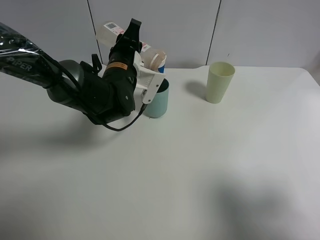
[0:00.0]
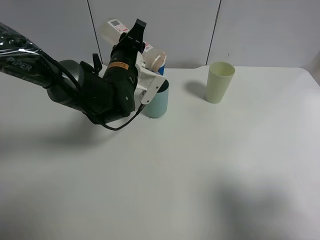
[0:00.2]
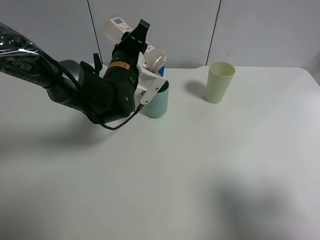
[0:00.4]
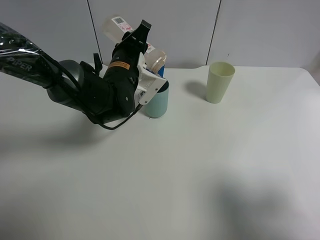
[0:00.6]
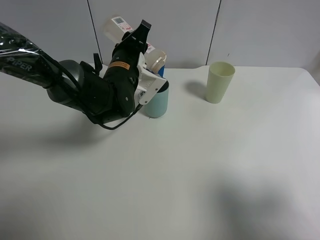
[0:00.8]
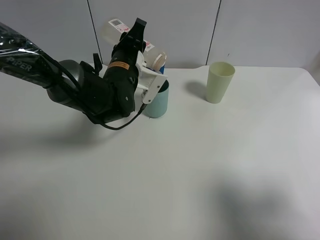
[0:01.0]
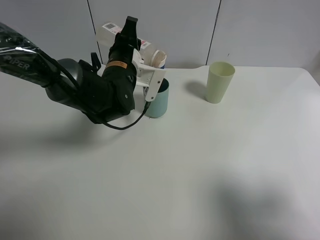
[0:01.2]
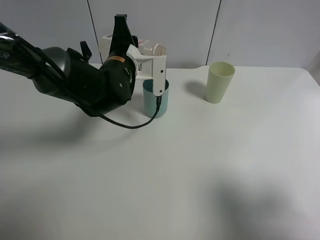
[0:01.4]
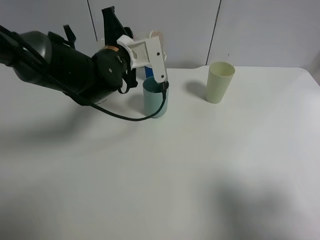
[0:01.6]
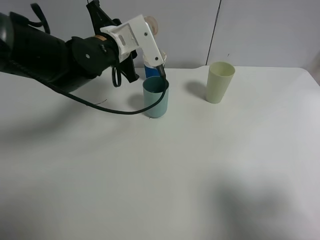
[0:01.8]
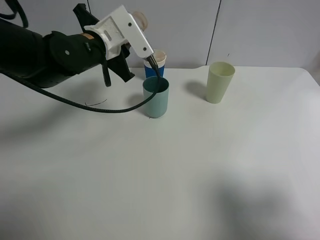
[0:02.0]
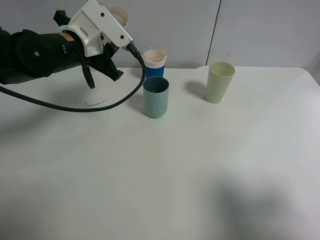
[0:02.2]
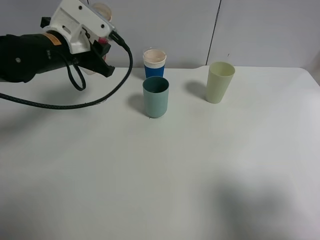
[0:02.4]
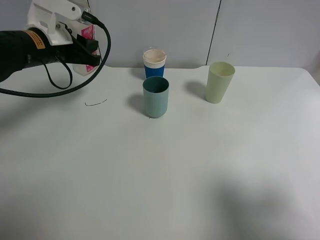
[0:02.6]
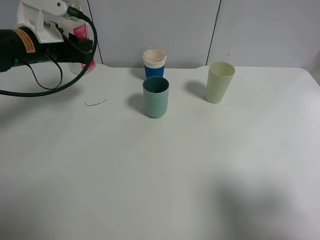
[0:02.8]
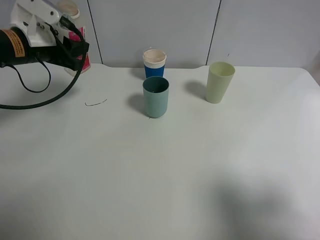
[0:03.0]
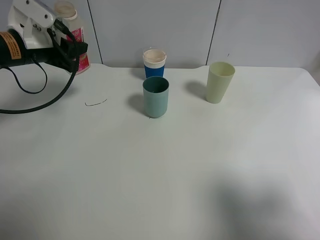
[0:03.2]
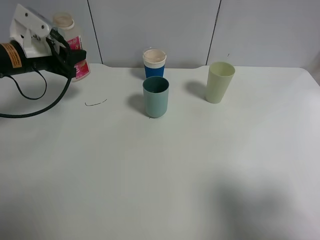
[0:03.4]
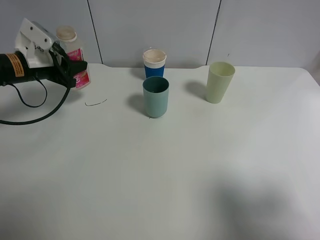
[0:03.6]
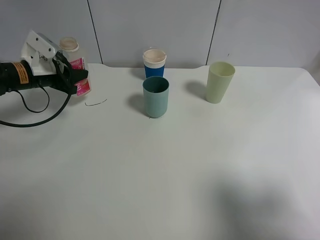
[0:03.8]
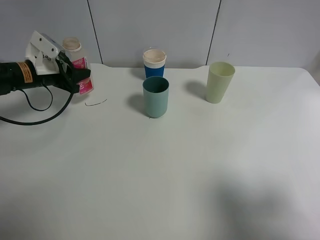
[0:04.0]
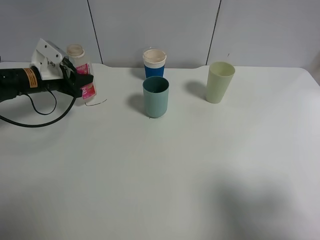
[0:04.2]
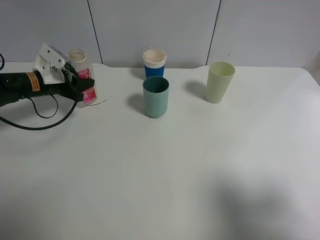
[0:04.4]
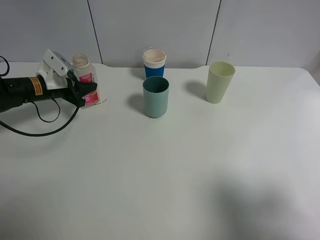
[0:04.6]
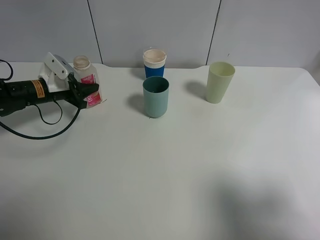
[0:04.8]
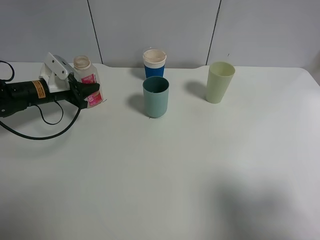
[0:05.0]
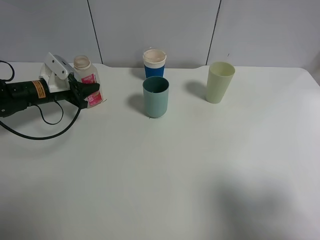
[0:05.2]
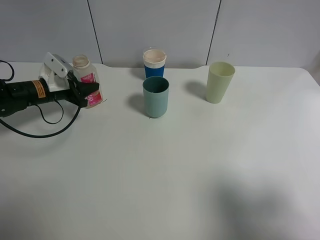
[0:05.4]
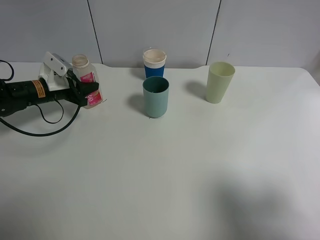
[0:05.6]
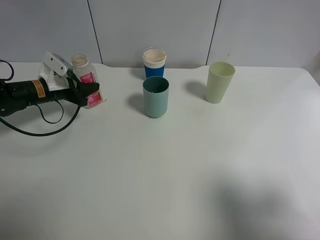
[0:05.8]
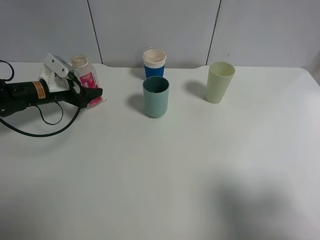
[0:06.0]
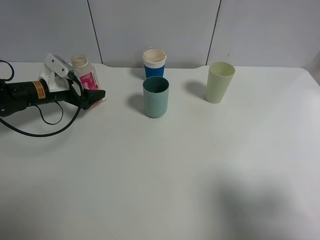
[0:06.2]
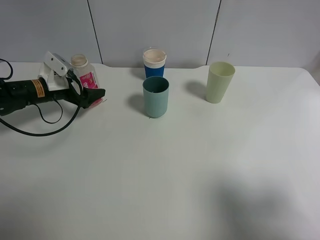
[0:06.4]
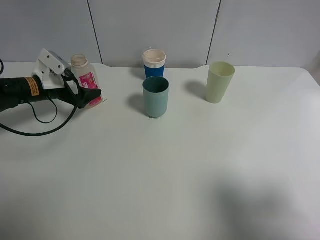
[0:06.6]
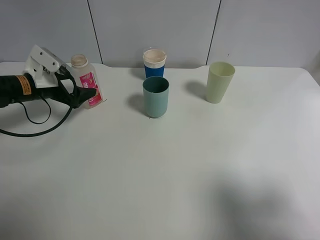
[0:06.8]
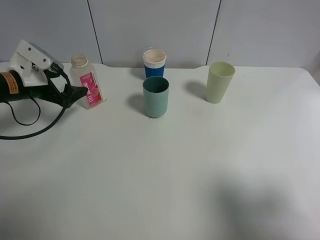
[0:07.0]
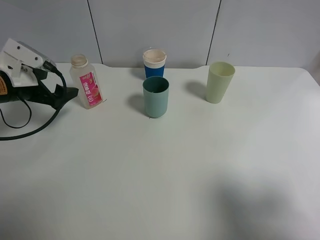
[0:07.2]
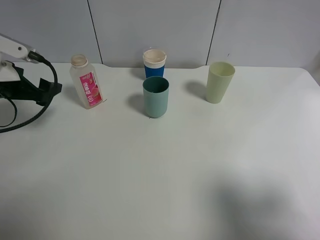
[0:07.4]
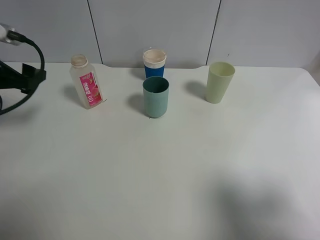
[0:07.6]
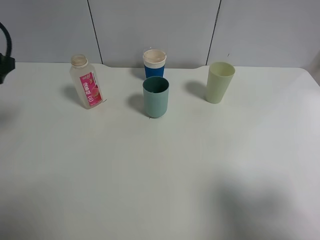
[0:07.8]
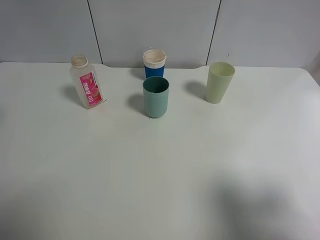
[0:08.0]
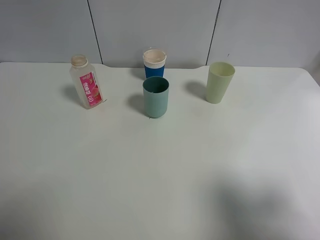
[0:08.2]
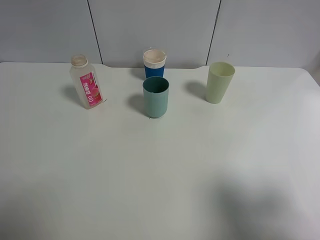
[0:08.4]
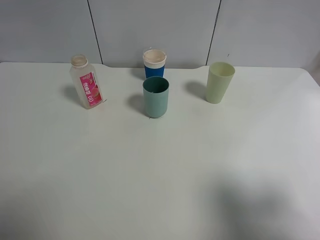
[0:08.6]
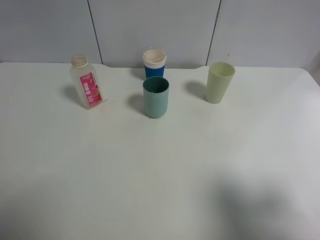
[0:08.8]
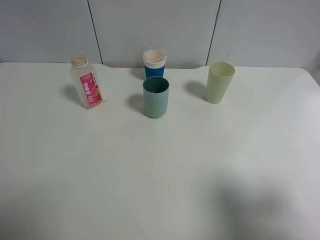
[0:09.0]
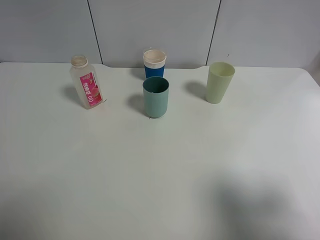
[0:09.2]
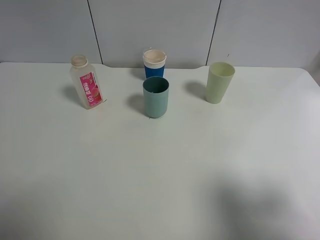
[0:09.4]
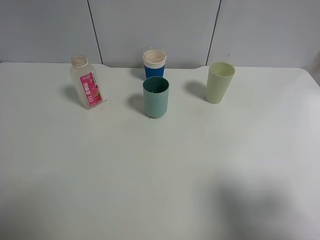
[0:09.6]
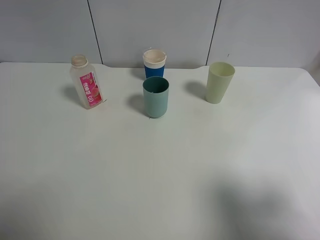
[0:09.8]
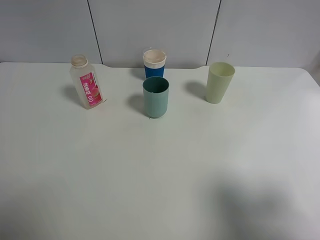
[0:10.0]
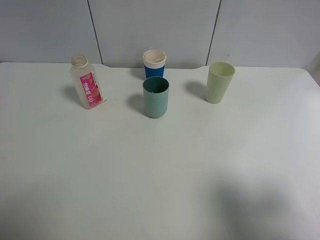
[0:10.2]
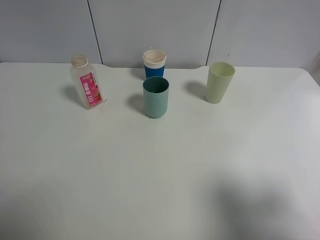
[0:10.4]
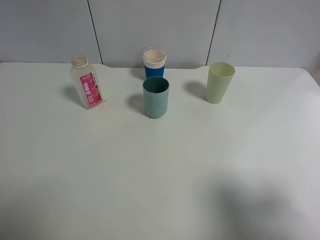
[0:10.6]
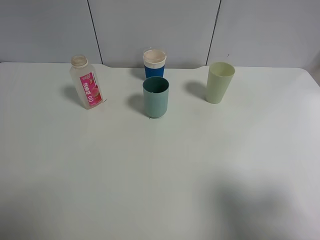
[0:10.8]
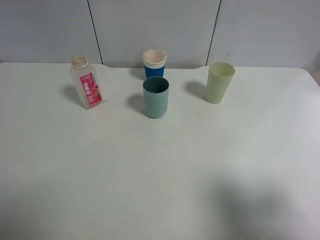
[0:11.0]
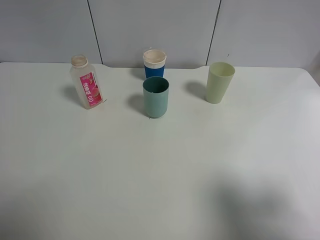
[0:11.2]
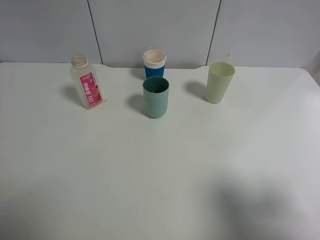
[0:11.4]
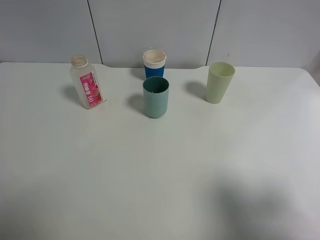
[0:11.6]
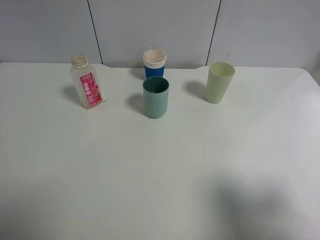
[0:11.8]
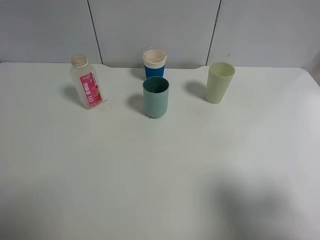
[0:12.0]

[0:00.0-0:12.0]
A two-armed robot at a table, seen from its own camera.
Task of the whole recording: use a clamp to hold the bottle of the drink, pour the beverage into a random cup, then clamp the cup containing the drink and pour the drink into another random cup.
Step, 0:01.8 to 0:05.8: Place the drink bottle on the table with left gripper.
0:01.6 to 0:03.0: The left gripper heads to the left, covering some 15 cm.
0:03.0 to 0:04.4: The left gripper goes roughly 10 cm downward.
0:04.4 to 0:06.0: The left gripper opens.
0:06.0 to 0:07.6: The left gripper goes approximately 20 cm upward and backward.
0:07.6 to 0:09.0: The left gripper is displaced backward and upward by approximately 30 cm.

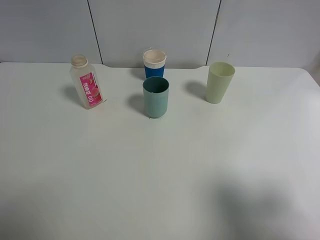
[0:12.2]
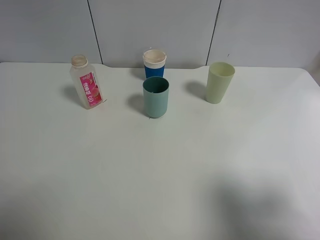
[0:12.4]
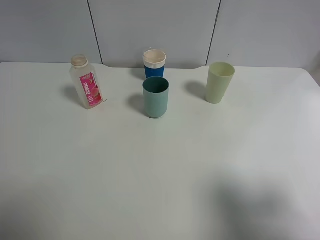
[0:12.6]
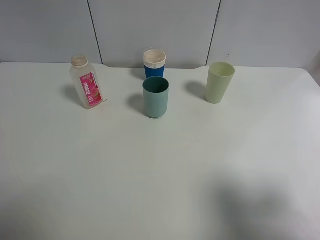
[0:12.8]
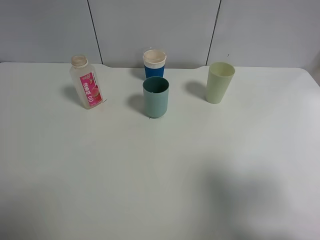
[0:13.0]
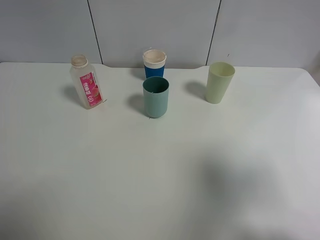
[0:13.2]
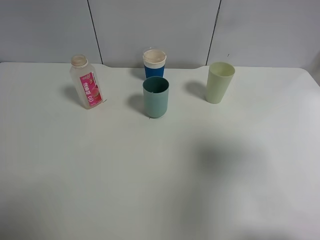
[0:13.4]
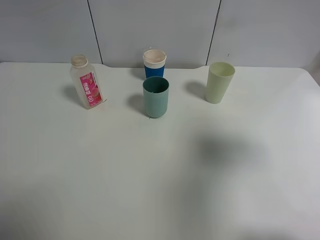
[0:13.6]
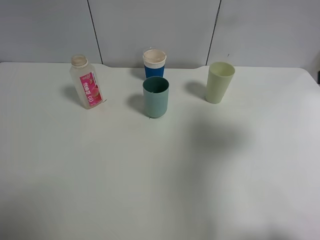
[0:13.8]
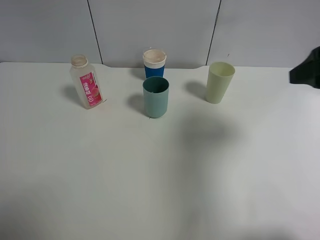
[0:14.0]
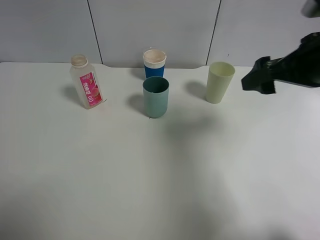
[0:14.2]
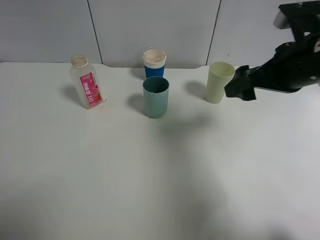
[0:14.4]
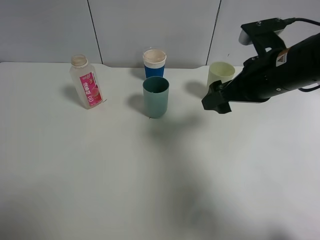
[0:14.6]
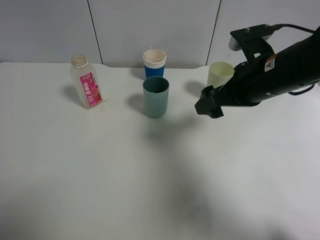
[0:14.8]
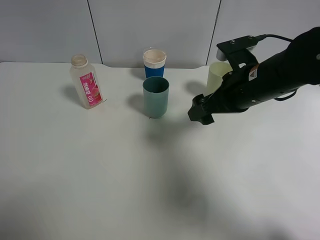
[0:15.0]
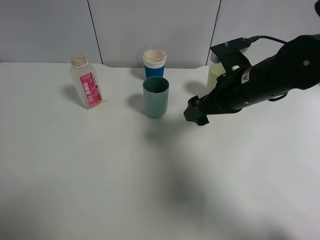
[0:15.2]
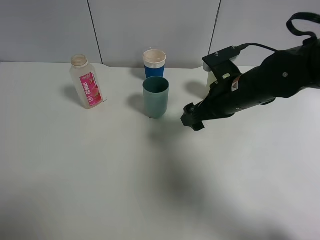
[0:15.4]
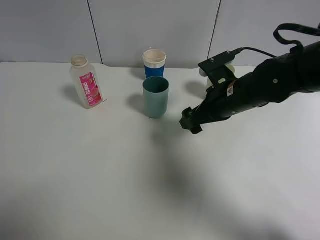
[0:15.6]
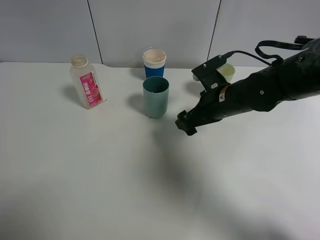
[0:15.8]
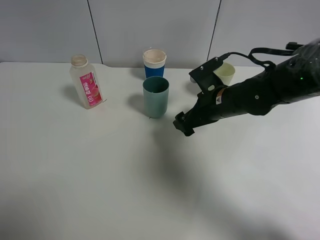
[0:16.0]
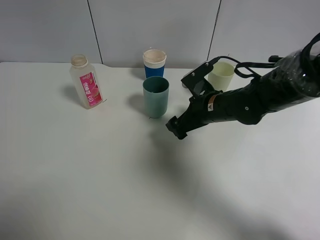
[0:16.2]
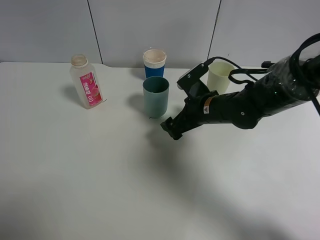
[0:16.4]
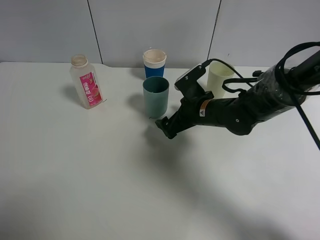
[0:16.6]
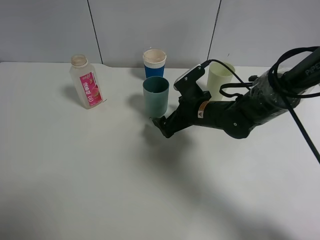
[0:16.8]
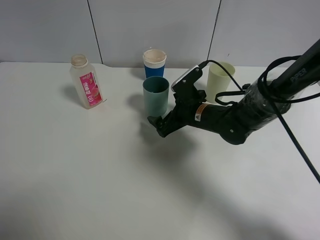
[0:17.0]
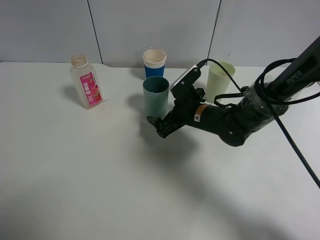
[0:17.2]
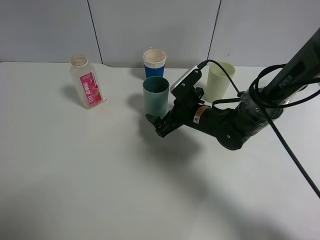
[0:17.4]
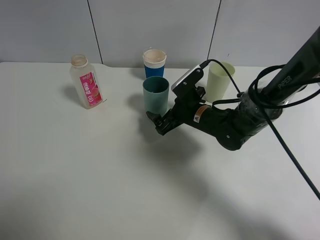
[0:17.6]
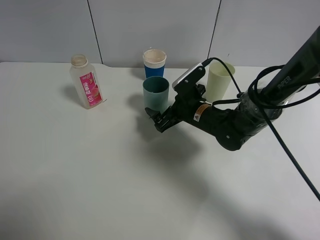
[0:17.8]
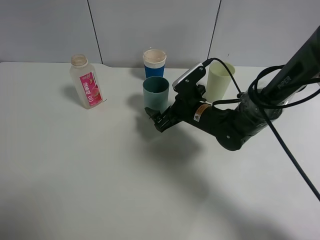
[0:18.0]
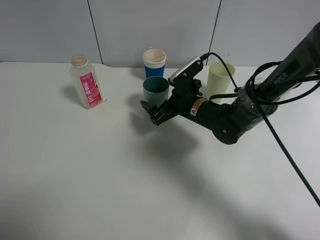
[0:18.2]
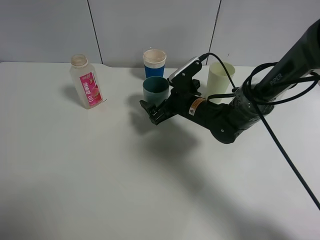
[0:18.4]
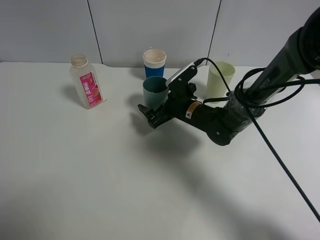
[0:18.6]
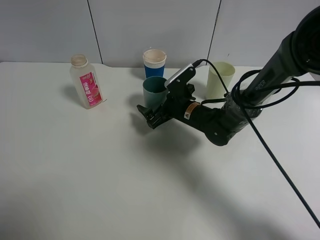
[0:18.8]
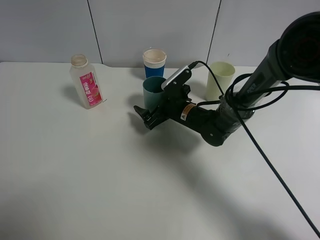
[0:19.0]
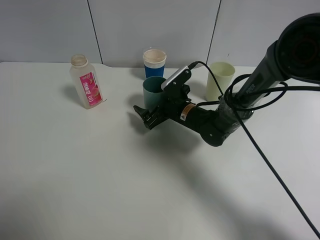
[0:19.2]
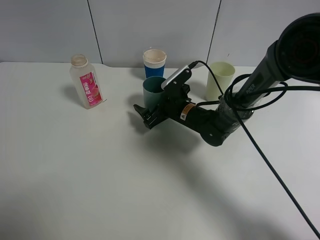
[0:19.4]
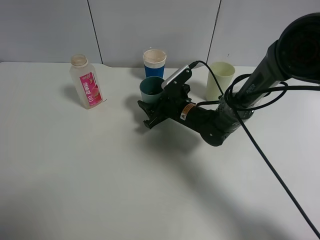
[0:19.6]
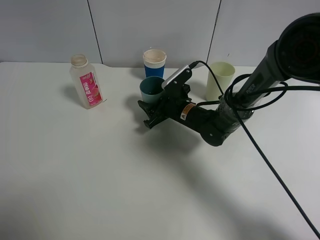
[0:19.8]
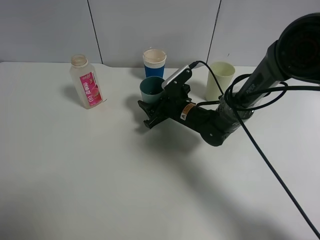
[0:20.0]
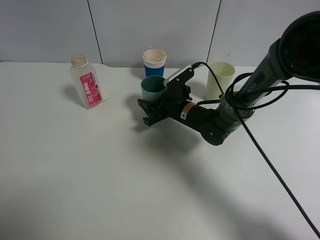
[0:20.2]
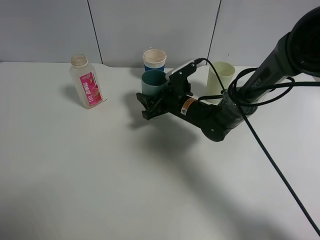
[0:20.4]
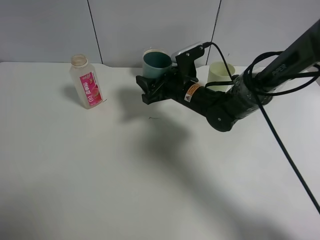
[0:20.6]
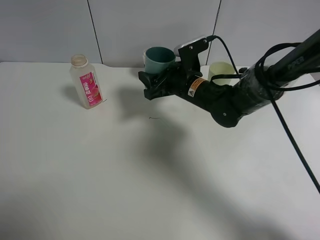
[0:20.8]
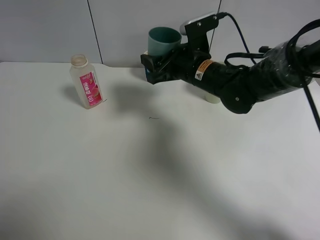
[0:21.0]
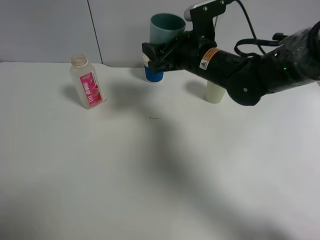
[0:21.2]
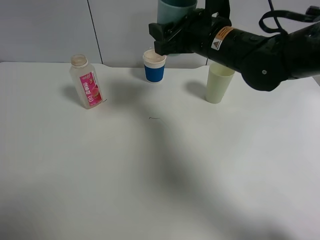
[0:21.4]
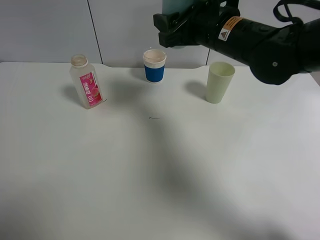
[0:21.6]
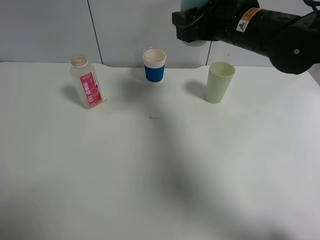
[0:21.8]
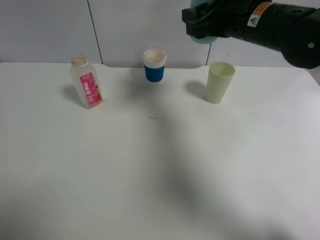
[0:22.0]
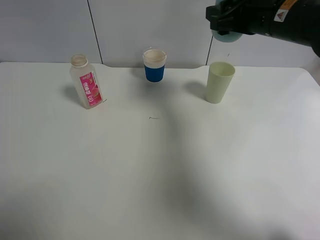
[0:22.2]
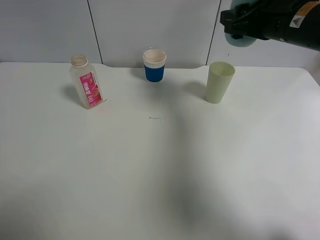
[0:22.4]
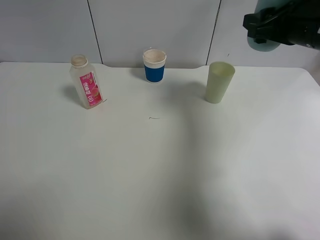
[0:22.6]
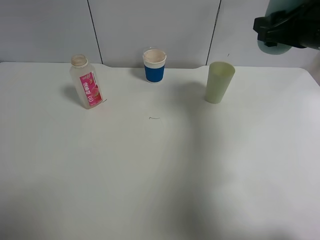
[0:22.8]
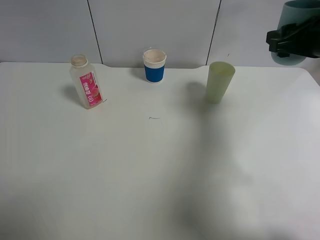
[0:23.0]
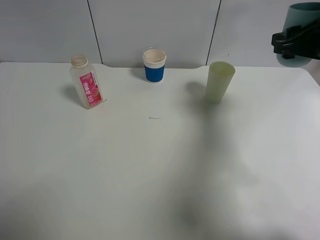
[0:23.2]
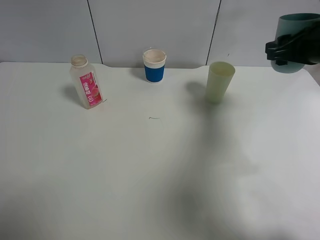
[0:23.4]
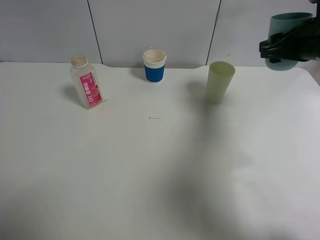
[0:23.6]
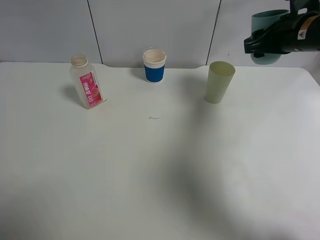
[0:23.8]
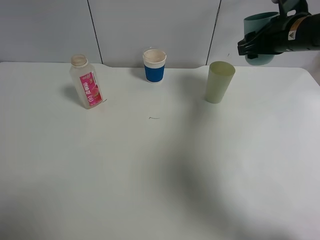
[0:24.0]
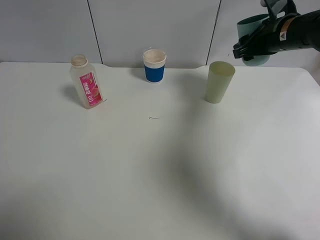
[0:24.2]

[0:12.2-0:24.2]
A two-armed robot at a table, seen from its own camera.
Task of the whole recording: use a clamp to hold the bottle of the drink, pour the beverage into a random cup, then clamp the cup containing the drink and pour the drink into another random cup.
Step, 0:12.2 to 0:20.4: Pick up the green plastic cup bottle with right gripper.
0:12.2 to 0:13.8: The right gripper shifts approximately 15 cm forward.
0:13.8 to 0:15.2: The right gripper goes about 20 cm to the left, downward and forward.
0:15.2 to 0:16.6: The right gripper heads downward, covering approximately 10 cm.
0:18.2 to 0:19.8: The right gripper closes up.
0:19.8 to 0:21.2: The right gripper heads upward, covering some 15 cm.
0:21.2 to 0:22.6: The right gripper heads to the right and upward, covering approximately 15 cm.
0:22.6 to 0:24.2: The right gripper shifts about 10 cm forward.
